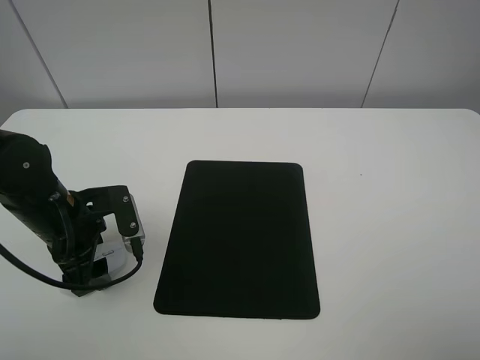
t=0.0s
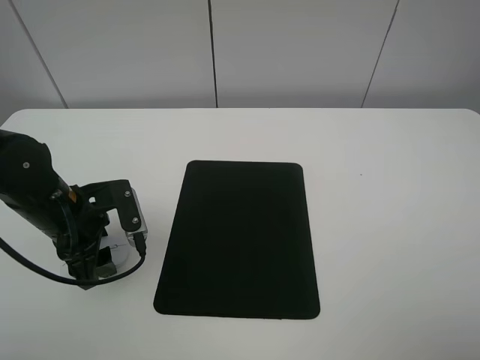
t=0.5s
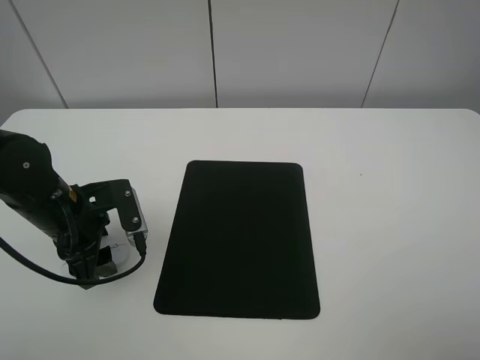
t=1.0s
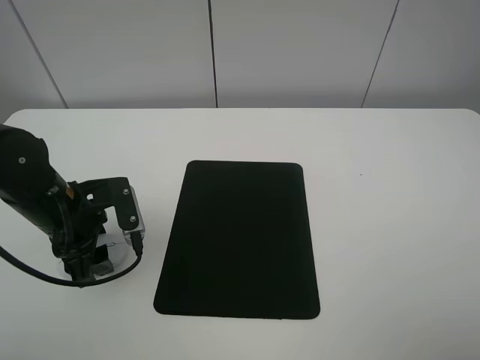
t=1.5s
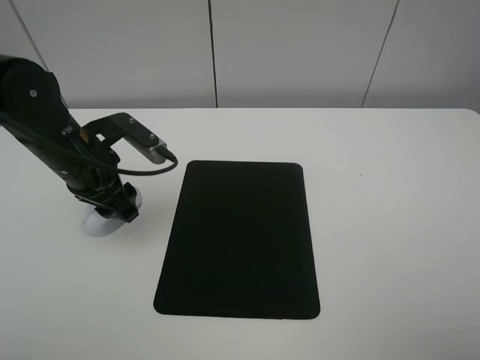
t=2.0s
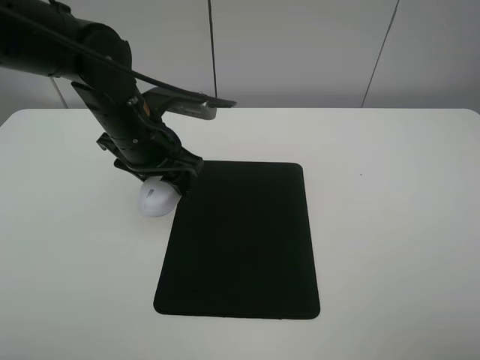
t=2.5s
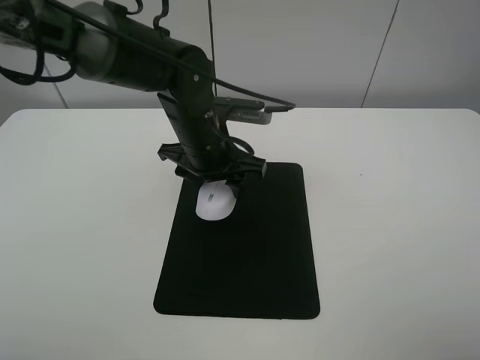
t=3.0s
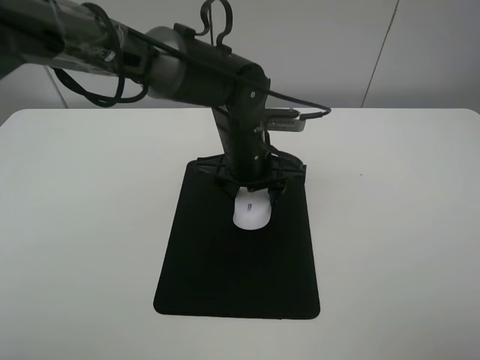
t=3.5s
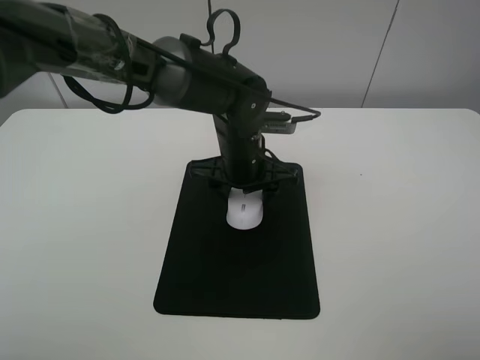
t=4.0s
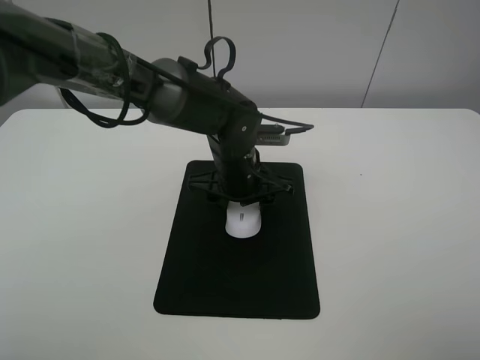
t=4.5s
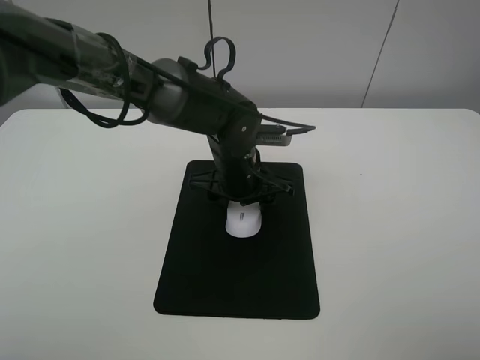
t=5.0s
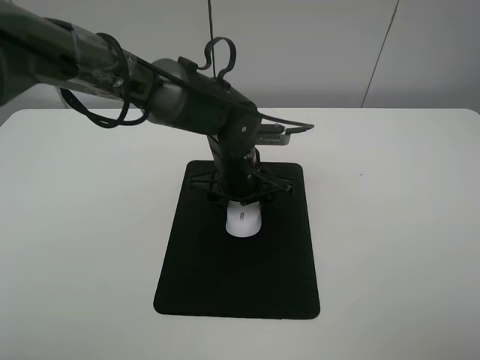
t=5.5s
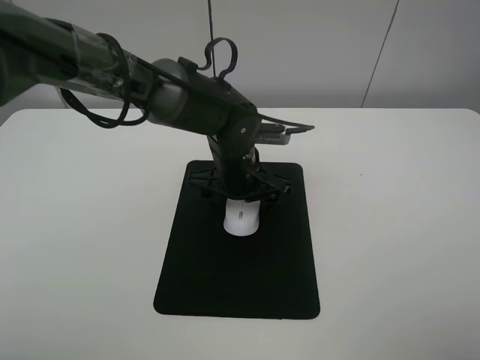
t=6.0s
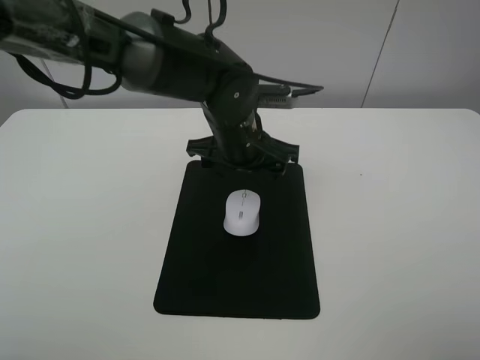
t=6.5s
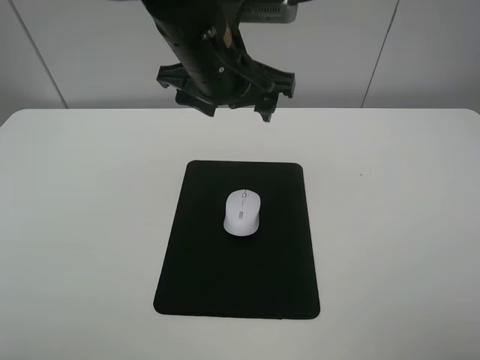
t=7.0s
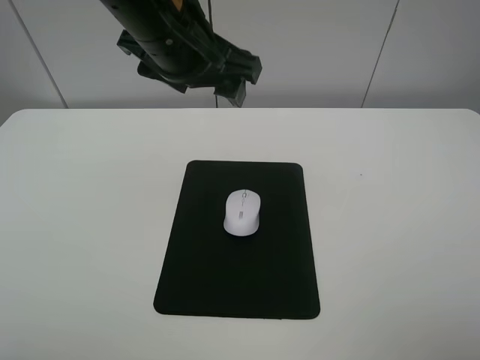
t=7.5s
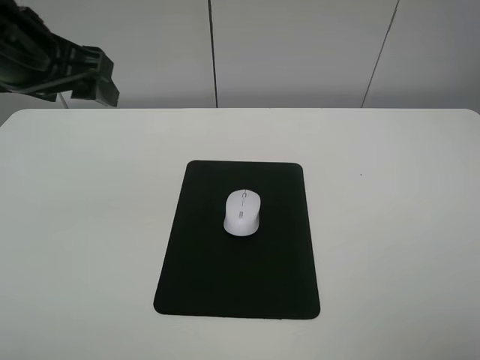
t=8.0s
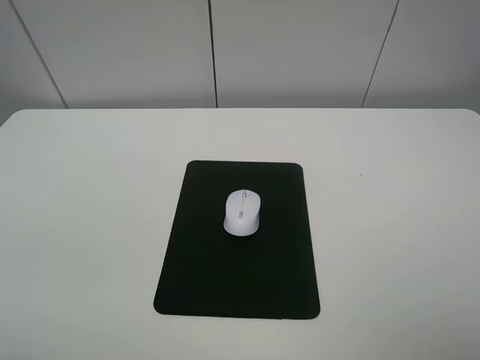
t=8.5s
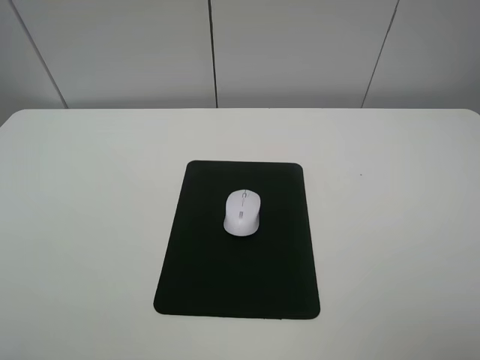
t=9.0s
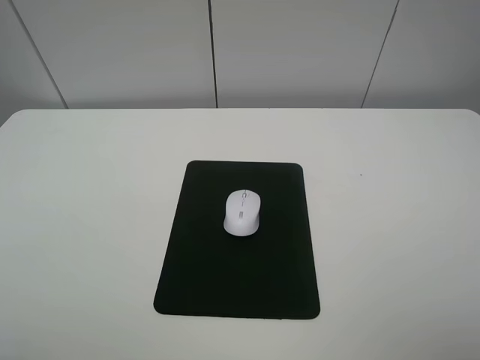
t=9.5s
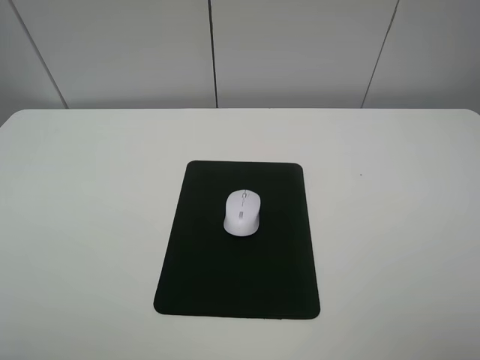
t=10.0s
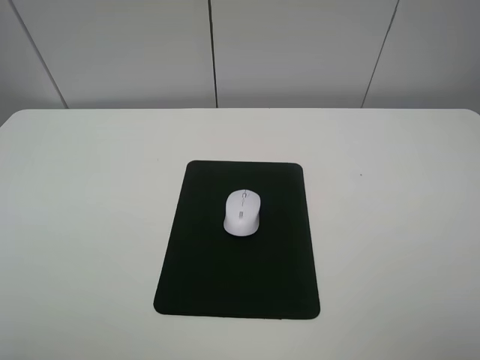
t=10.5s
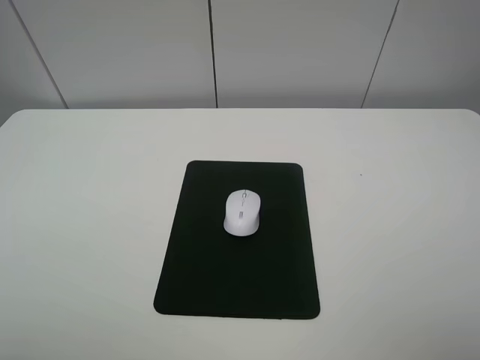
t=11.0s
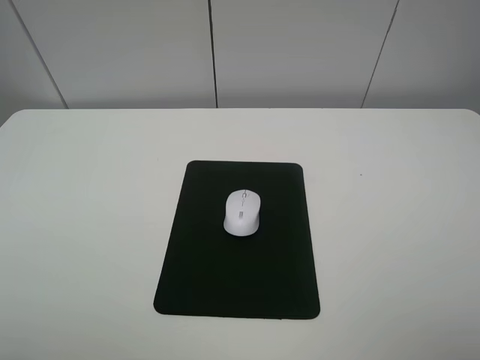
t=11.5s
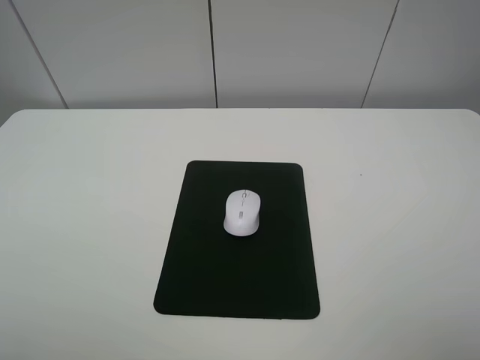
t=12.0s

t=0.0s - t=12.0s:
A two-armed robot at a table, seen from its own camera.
Step, t=1.0s - t=6.0s: Place the mouse on the mouse mat with the left gripper.
t=0.0s - t=2.0s: The left gripper shifts roughly 10 cm upward and forward, and closes.
t=2.0s - t=4.0s: The left gripper is displaced to the right by approximately 20 cm.
t=4.0s - t=6.0s: The left gripper opens its fingers.
t=6.0s - t=8.0s: The left gripper goes roughly 30 cm to the left and upward.
t=8.0s - t=10.0s: The left gripper shifts roughly 25 cm backward and to the left.
